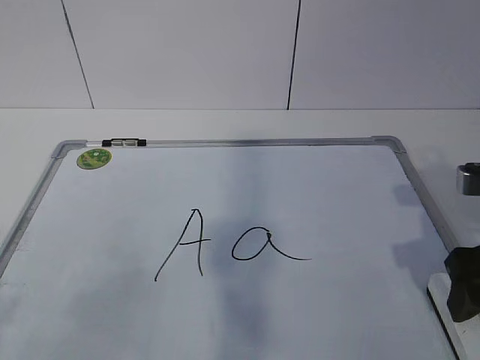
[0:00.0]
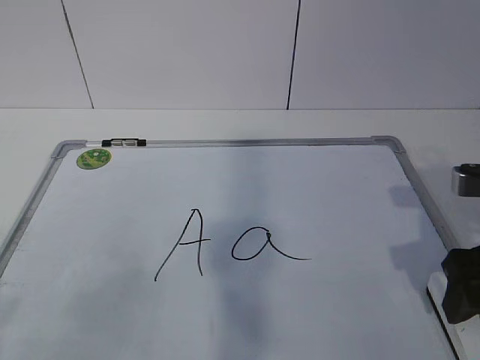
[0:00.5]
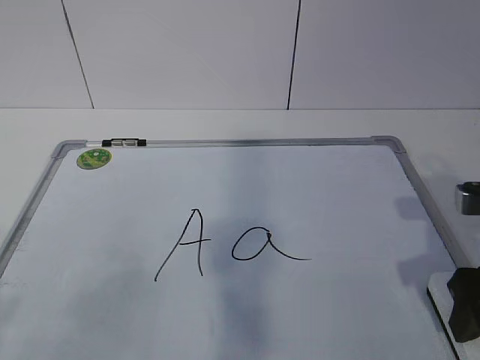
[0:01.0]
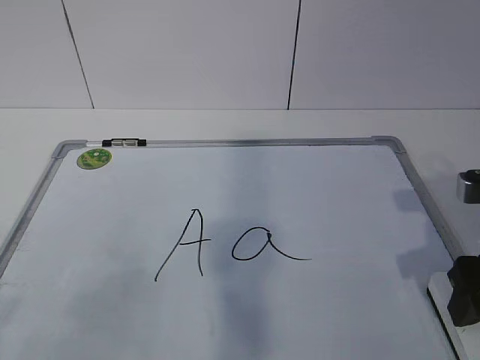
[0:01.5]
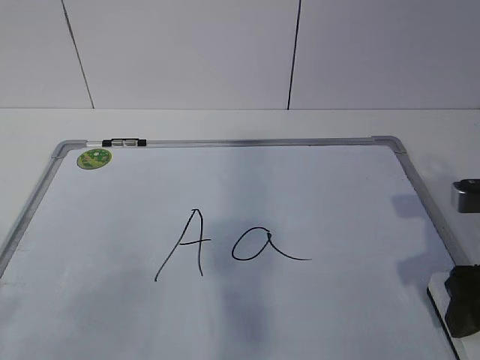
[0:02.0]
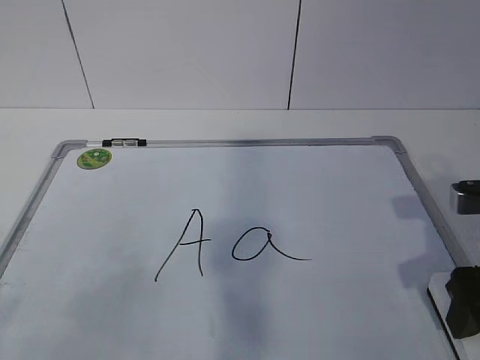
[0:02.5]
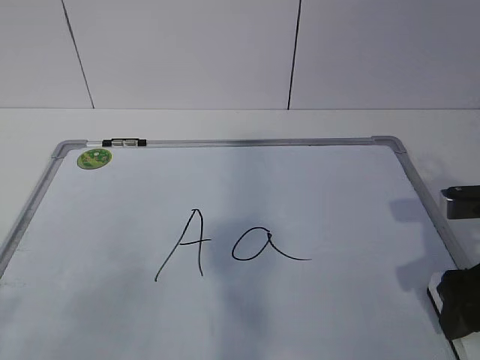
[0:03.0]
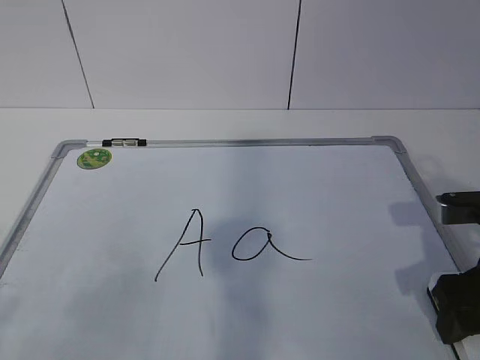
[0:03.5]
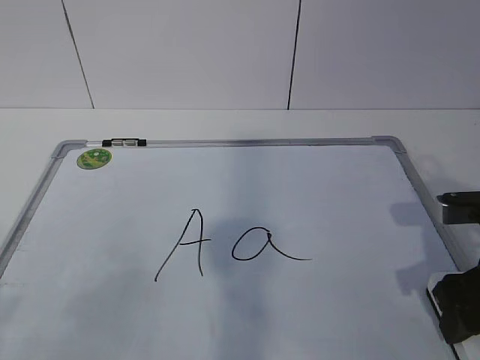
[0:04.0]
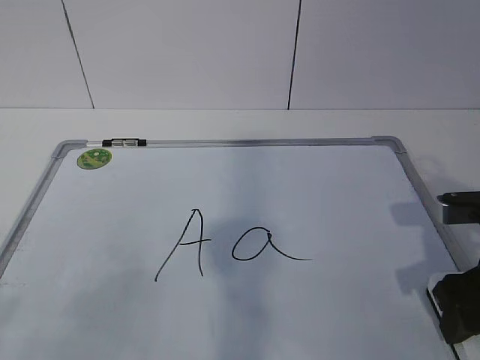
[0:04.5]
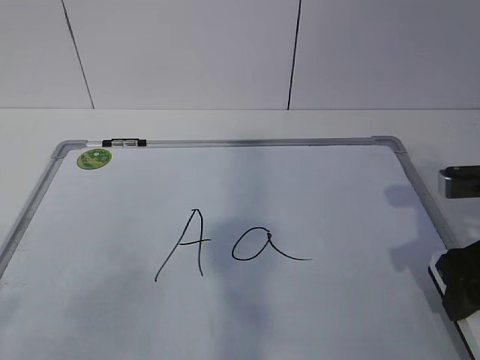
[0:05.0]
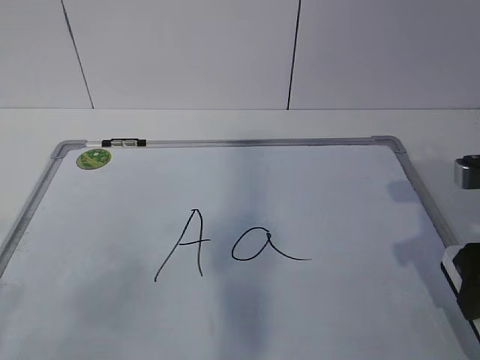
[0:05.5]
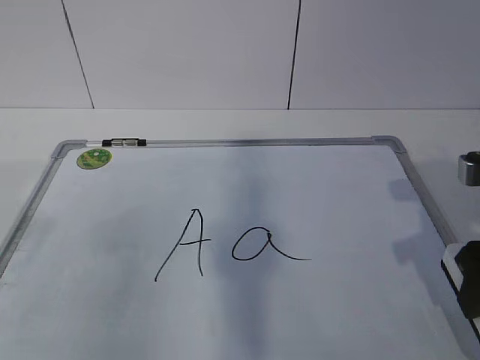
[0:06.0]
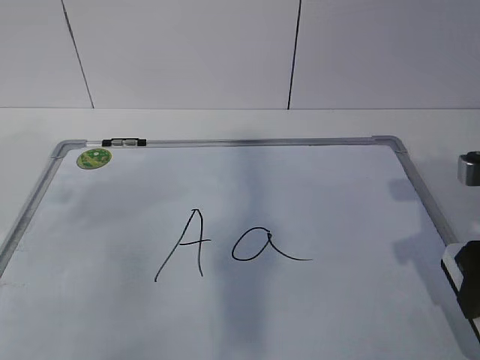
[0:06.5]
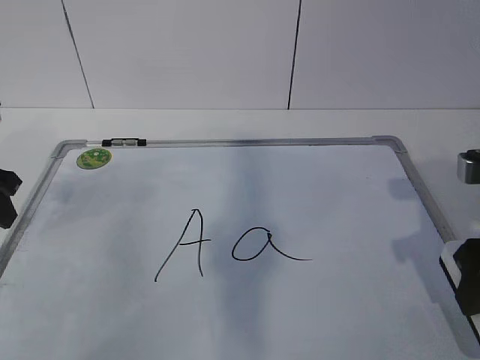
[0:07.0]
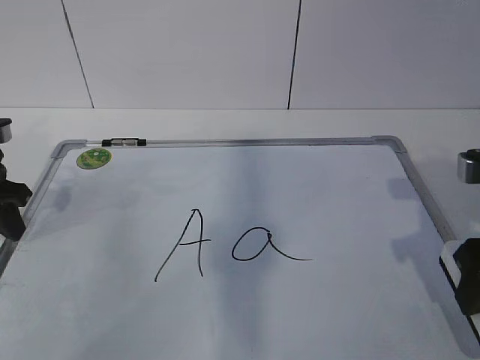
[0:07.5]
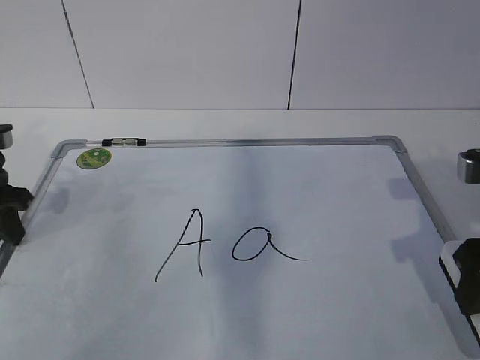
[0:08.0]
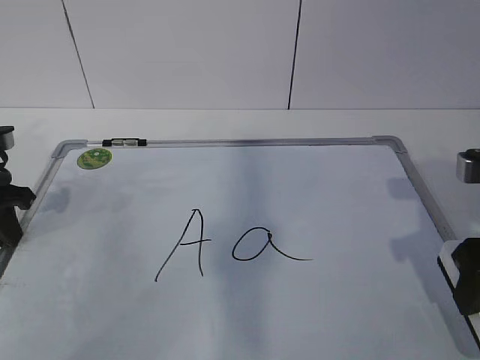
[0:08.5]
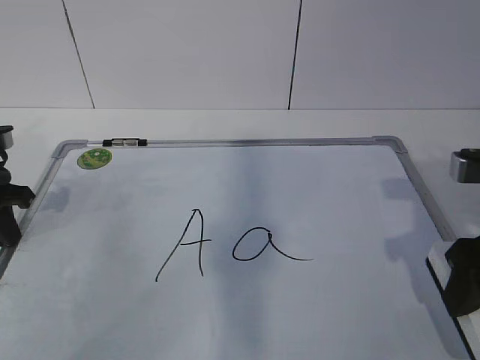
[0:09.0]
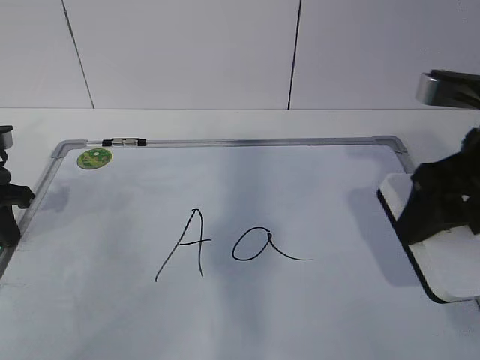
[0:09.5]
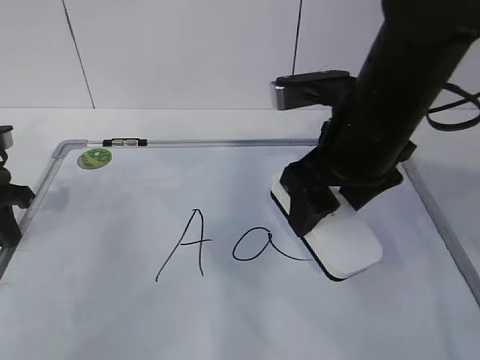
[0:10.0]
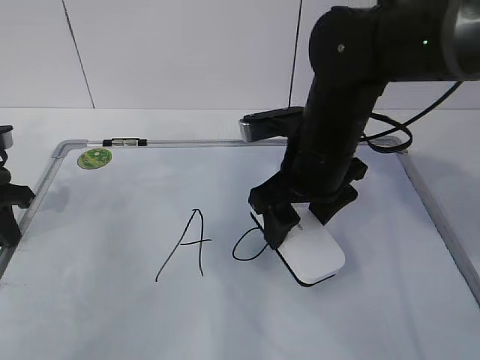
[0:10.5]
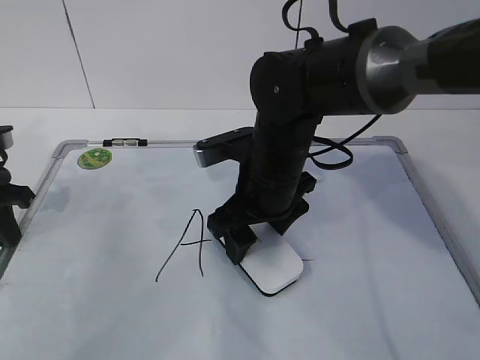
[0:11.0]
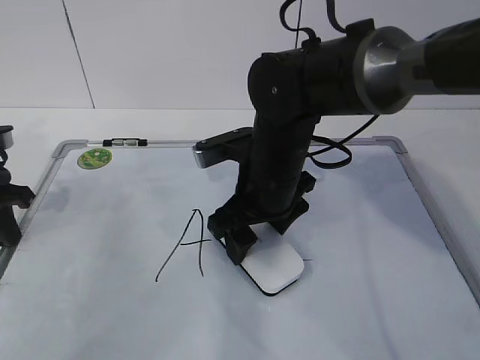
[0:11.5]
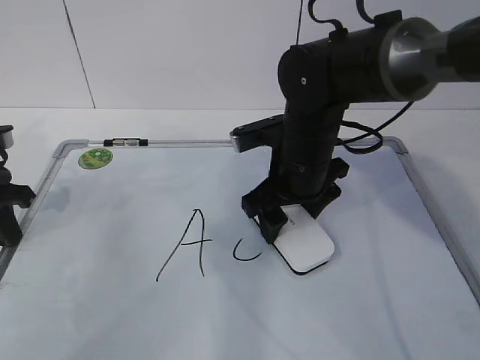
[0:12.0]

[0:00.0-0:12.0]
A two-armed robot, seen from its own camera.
Task of the whole recording: pick up the eraser on the blackboard and erase the letter "a".
Step, 0:05.5 to 0:10.5: Erase the letter a with your right hand.
0:00.0 to 0:02.0: The grippers stay close to where they were, moving slightly.
0:02.0 to 0:04.0: The right gripper closes.
0:04.0 to 0:06.0: The right gripper is displaced upward by roughly 5 cm.
0:06.0 to 0:08.0: The left gripper moves forward and downward, about 20 cm.
0:08.0 to 0:10.0: The right gripper goes some 15 cm to the left and forward. The left gripper closes up.
0:10.0 to 0:12.0: The right gripper heads downward and forward, covering roughly 10 cm.

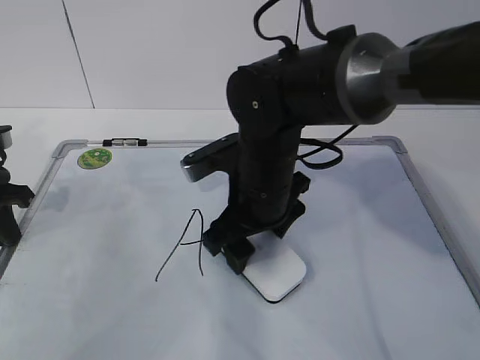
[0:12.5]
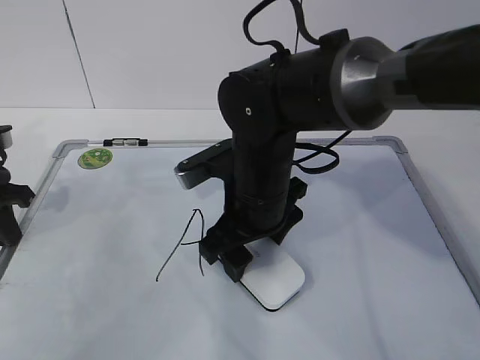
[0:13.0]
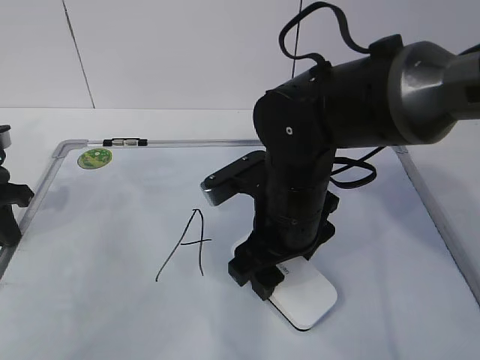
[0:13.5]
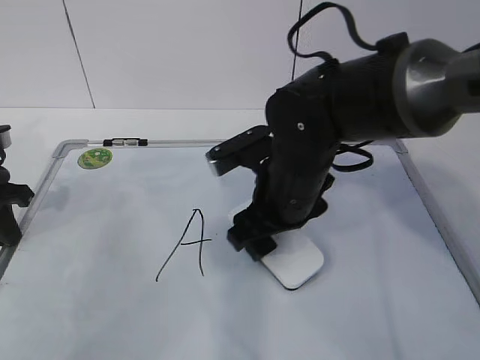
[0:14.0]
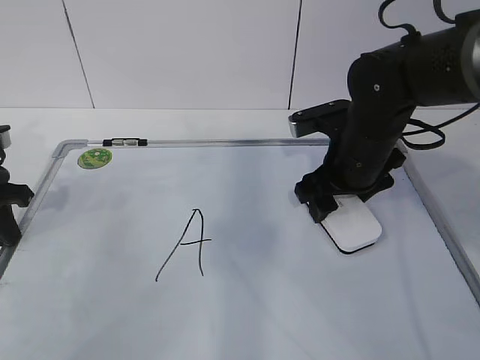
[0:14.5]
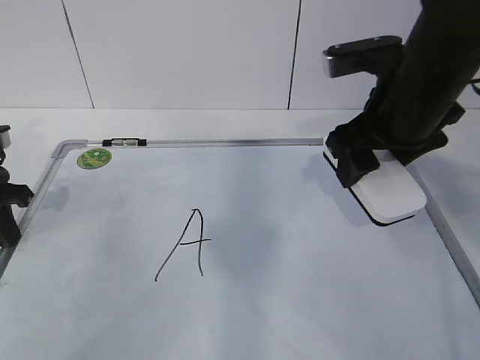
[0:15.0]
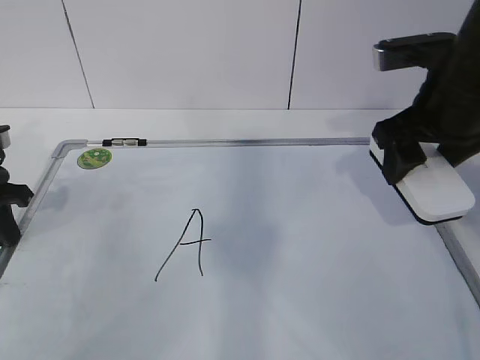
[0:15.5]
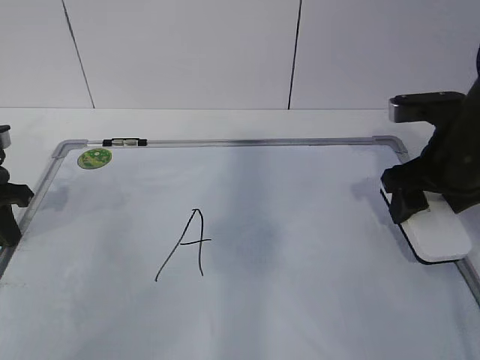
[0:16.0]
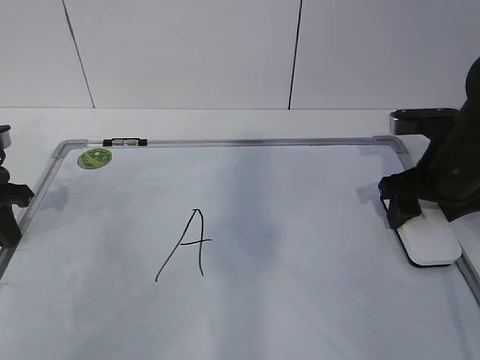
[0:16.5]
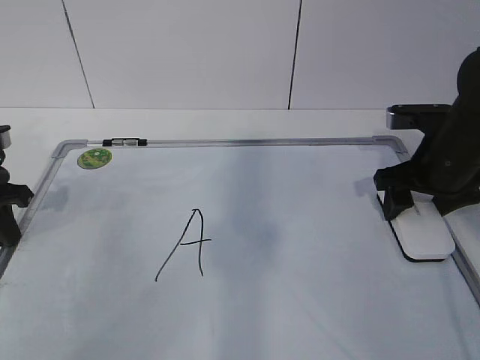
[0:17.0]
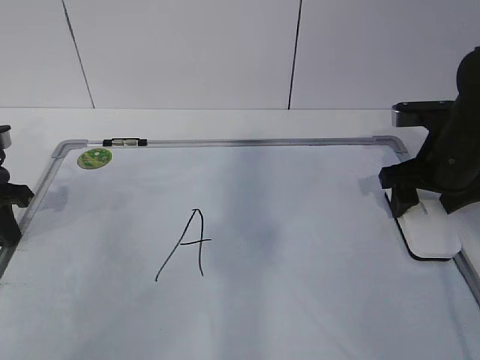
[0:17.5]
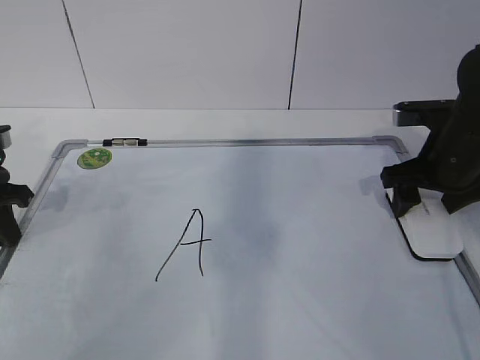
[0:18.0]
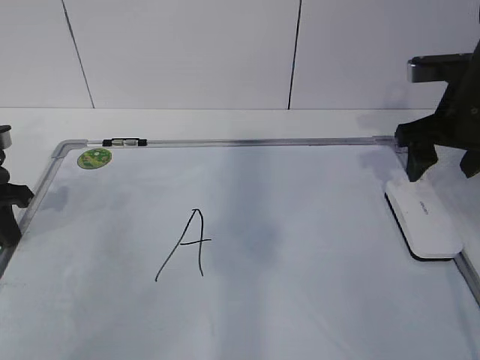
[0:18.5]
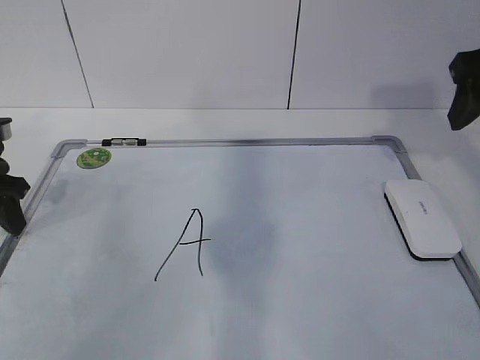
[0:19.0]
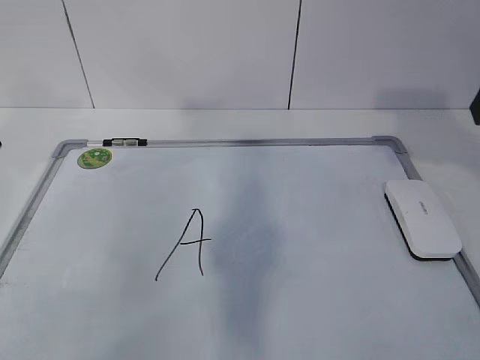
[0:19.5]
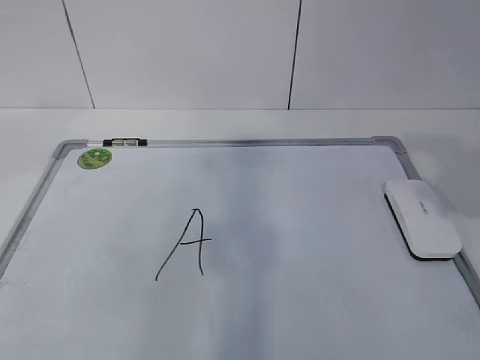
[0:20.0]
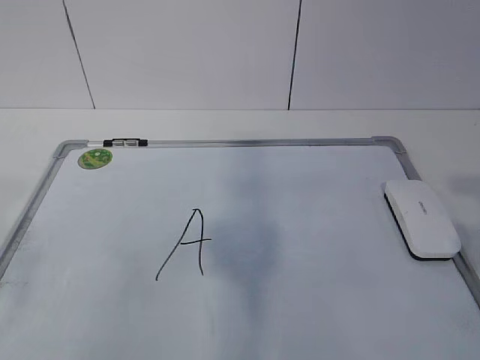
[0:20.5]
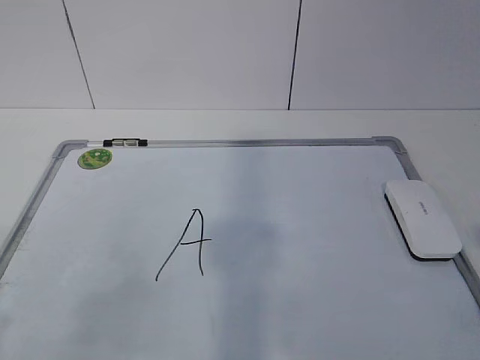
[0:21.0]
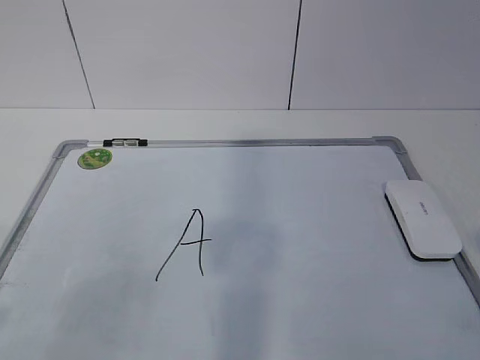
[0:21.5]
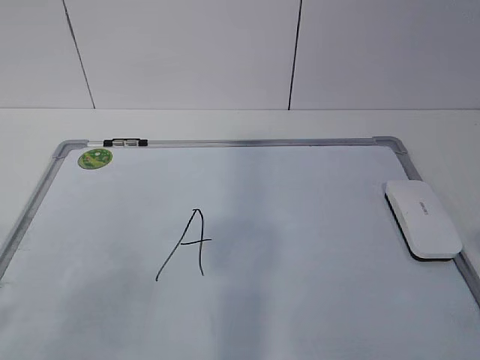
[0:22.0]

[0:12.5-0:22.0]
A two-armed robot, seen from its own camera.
Task of the whole recording: pick up the eraser on the blackboard and erase the letter "a".
0:12.5 to 0:14.5: The right gripper travels to the right by approximately 10 cm.
0:14.5 to 0:16.5: The right gripper moves to the right, approximately 10 cm.
0:16.5 to 0:18.0: The grippers stay close to where they were, moving slightly.
0:18.0 to 0:20.0: The left gripper goes approximately 30 cm upward and backward, and opens up. The right gripper goes about 25 cm backward and upward.
0:20.0 to 0:22.0: The left gripper heads backward and downward, covering approximately 20 cm.

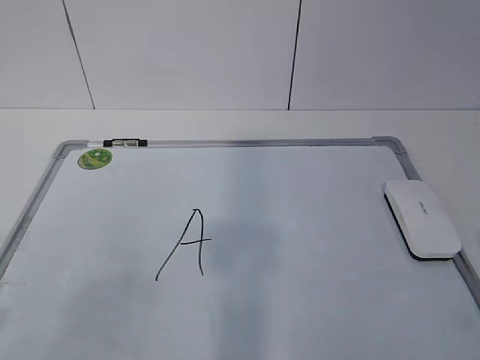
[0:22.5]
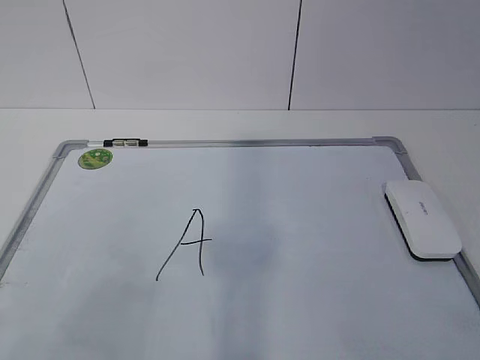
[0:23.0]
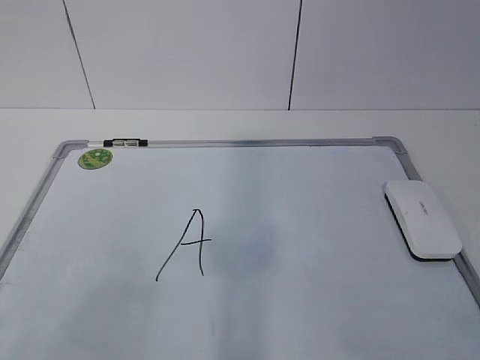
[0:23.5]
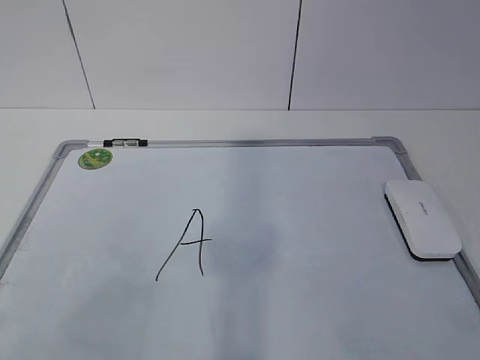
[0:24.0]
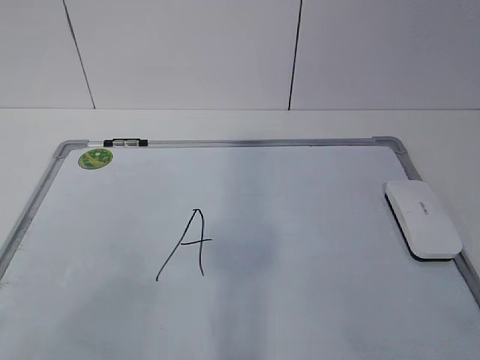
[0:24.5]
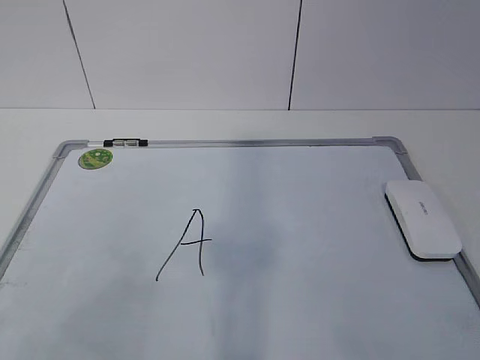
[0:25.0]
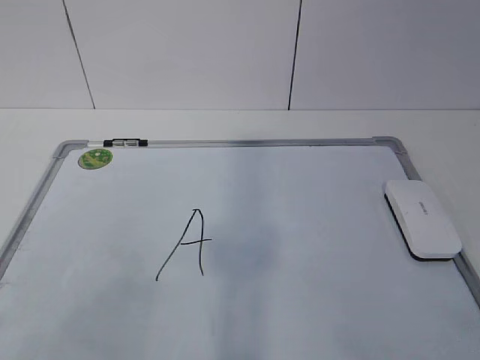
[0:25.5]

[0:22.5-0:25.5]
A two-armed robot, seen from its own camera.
Task of the whole recording: pick up the eraser on the blackboard and erase the letter "a".
0:24.0 to 0:25.5: Both grippers stay put.

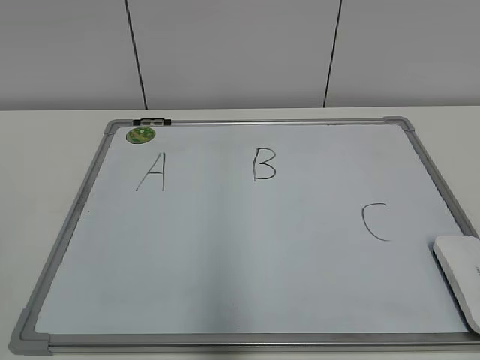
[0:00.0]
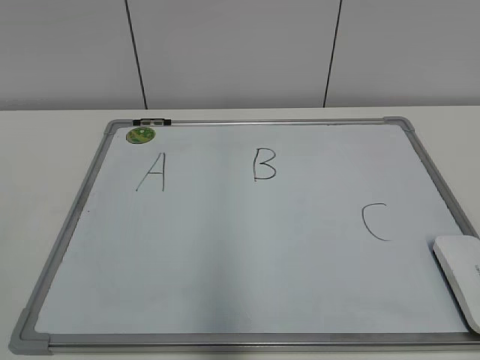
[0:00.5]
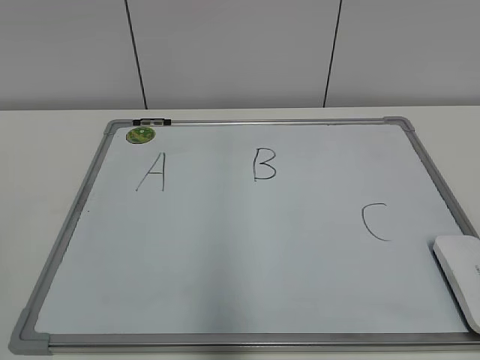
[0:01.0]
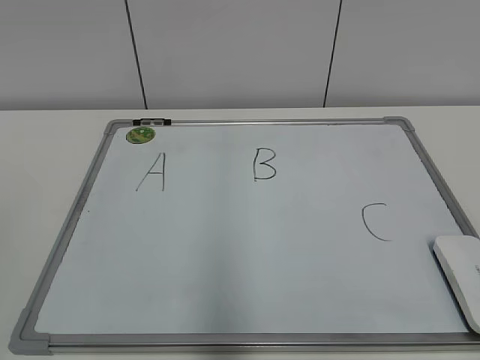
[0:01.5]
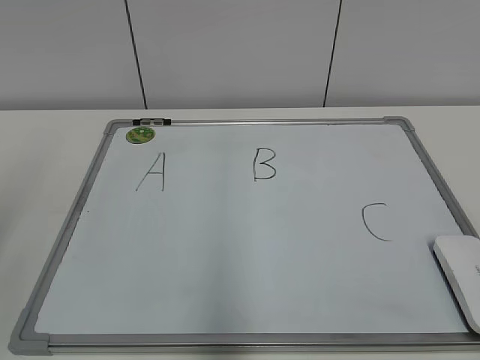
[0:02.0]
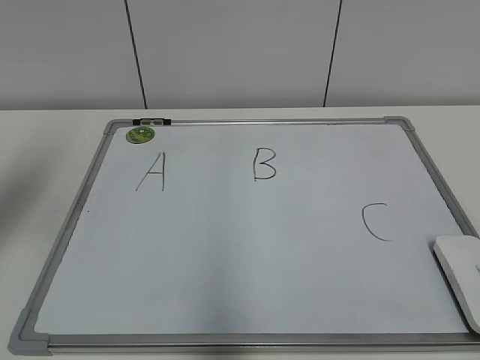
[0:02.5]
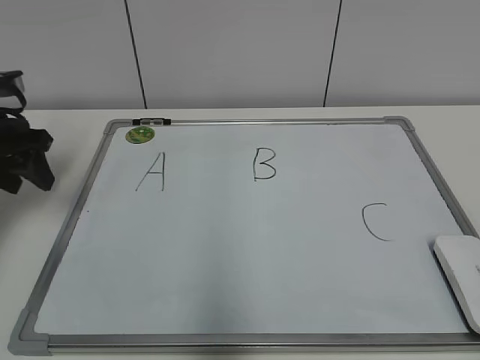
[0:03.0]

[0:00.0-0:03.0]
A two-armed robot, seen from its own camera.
Task of the whole recording: pick up the eraser on the blackboard and erase the letter "B".
0:01.5 to 0:03.0: The left gripper heads forward, covering roughly 35 cm.
